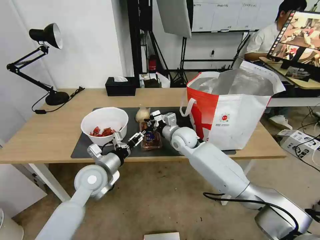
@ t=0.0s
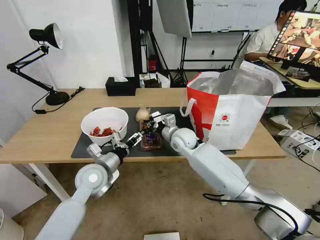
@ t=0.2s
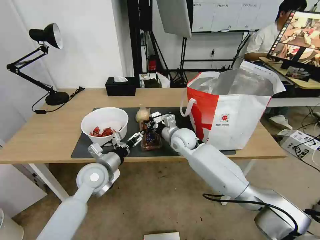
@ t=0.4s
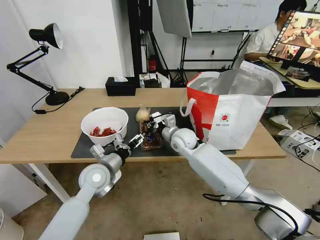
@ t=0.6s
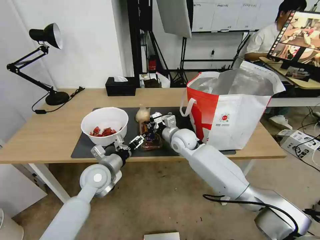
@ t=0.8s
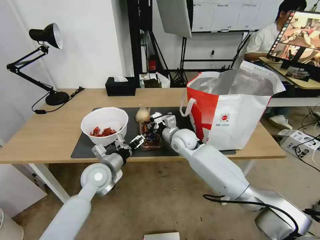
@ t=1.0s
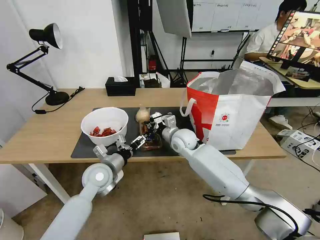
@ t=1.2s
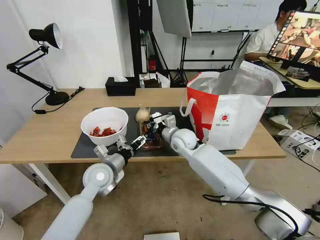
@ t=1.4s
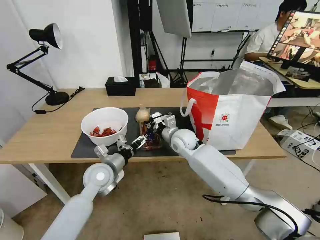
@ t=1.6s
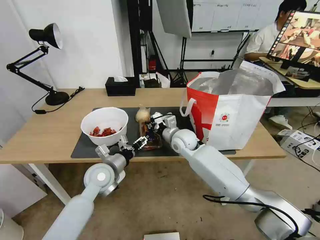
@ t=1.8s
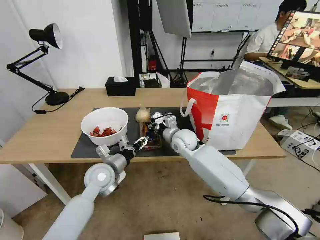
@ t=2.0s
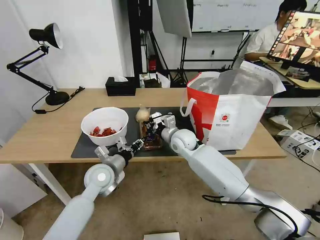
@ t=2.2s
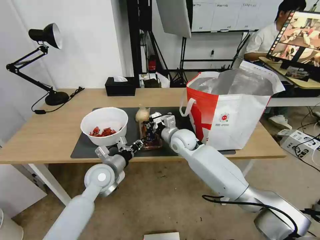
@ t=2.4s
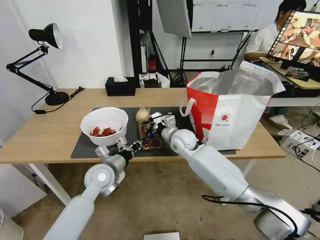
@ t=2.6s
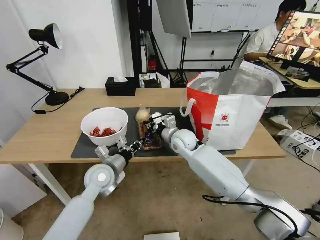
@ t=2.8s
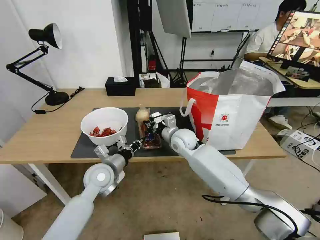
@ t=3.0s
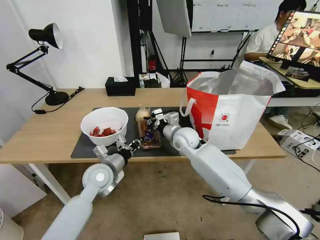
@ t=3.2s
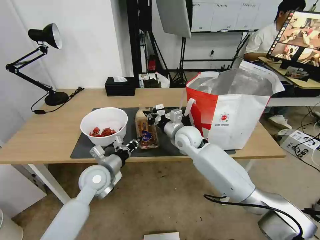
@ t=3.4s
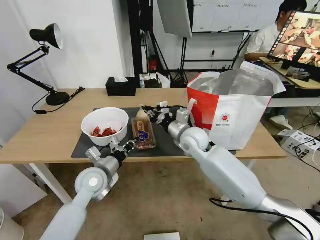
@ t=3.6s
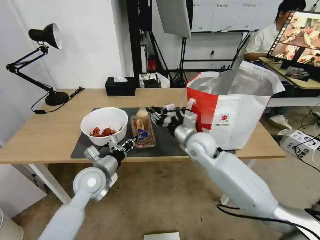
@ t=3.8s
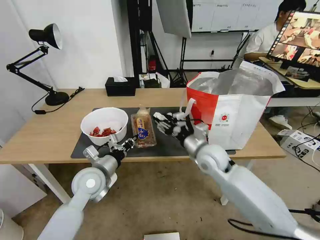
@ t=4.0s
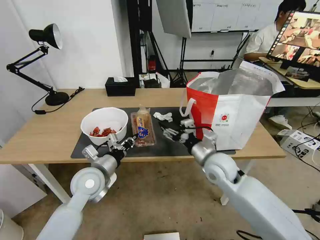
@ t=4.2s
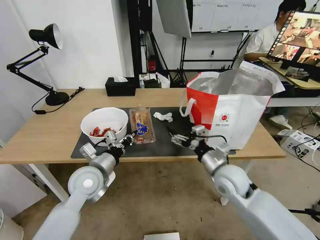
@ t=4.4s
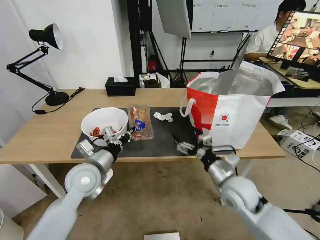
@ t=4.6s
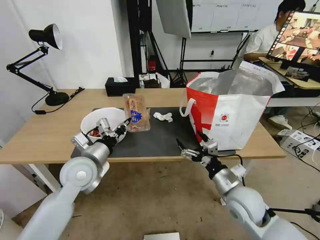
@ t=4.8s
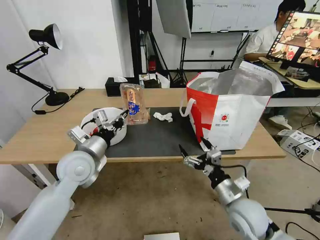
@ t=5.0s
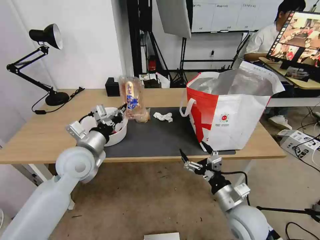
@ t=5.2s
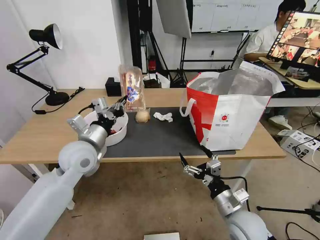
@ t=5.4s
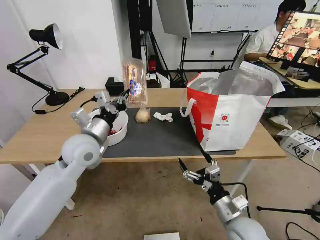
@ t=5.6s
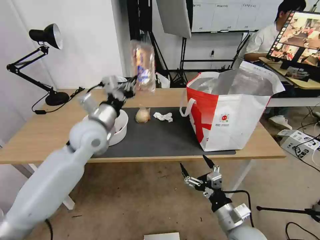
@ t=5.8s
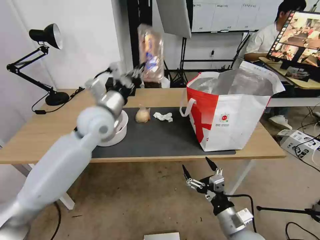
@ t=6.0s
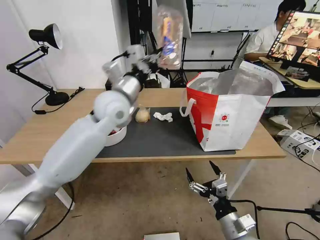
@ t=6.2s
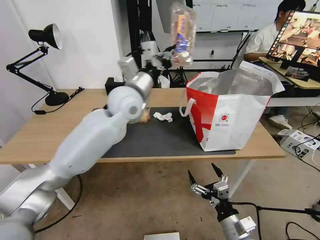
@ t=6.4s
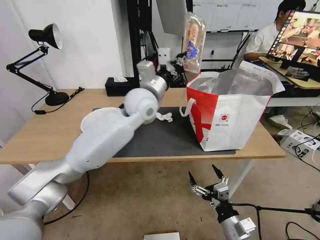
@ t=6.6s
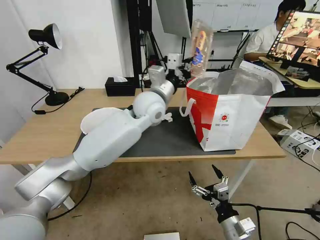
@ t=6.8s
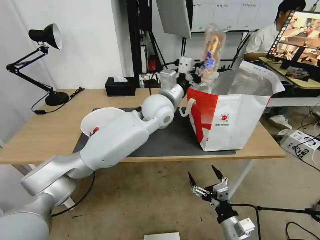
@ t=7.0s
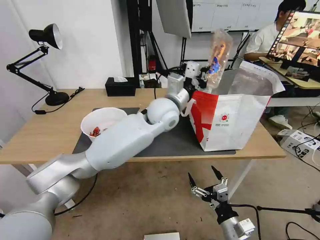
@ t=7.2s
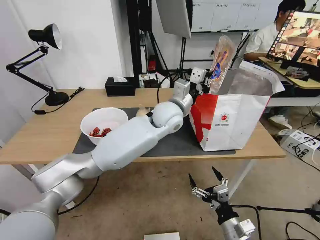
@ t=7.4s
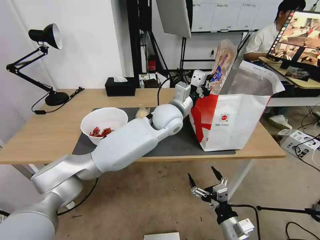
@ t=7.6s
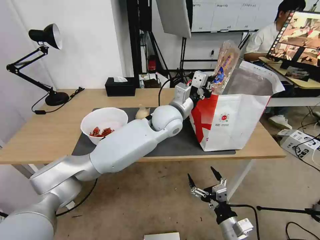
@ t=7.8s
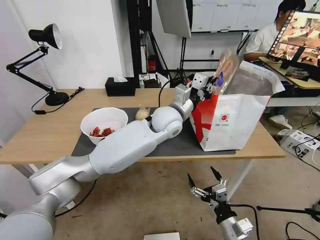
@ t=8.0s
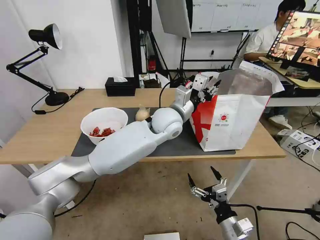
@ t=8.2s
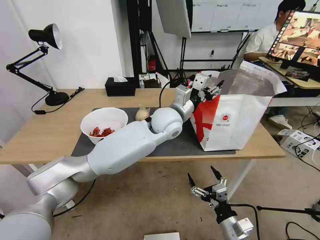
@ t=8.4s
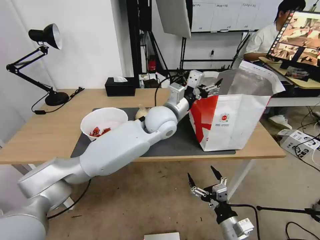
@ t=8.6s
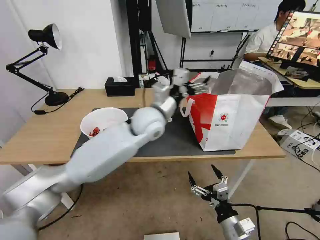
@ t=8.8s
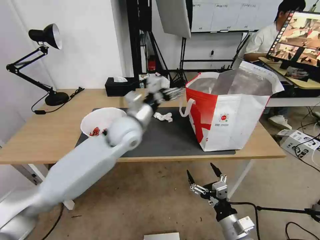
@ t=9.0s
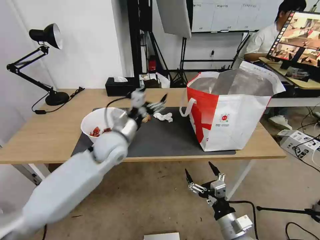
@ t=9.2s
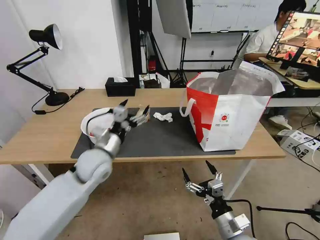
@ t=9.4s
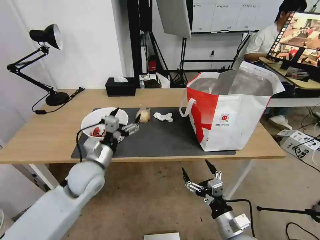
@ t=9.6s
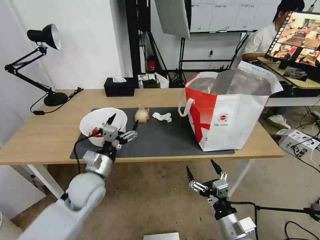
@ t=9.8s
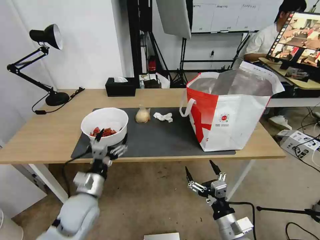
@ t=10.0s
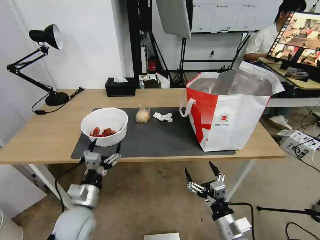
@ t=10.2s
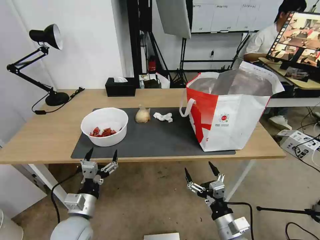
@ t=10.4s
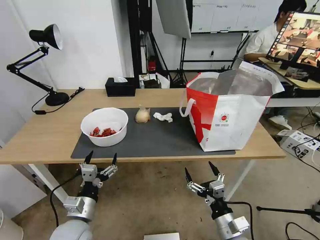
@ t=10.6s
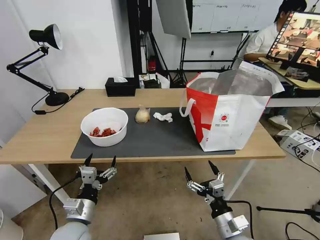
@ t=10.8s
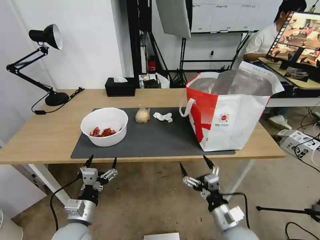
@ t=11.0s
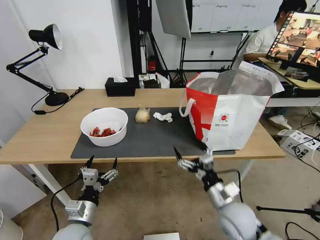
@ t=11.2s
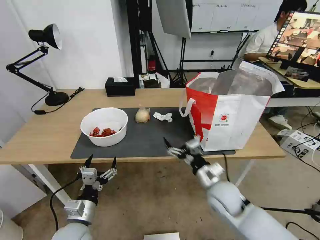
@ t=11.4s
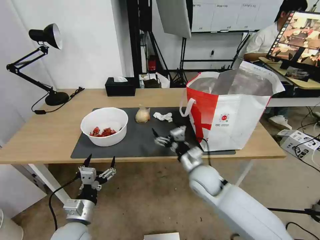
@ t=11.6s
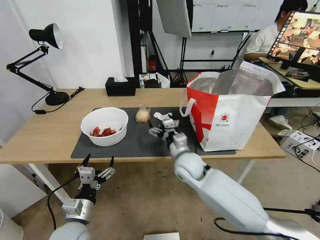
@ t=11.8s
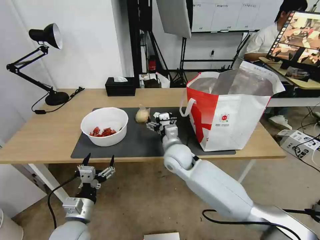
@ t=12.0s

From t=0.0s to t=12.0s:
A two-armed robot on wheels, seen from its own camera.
Task of the whole recording: Pick up the trash from the table and place it into the takeout bag.
From t=0.0s to t=1.6s: The grippers make only small movements.
From t=1.6s to t=3.0s: The left gripper closes up.
From t=3.0s to t=4.4s: The right gripper moves backward and to the right, about 20 cm, and opens; the left gripper changes place by about 5 cm.
From t=4.4s to t=6.0s: The left gripper shifts about 20 cm upward and forward; the right gripper moves backward and downward, some 20 cm.
From t=6.0s to t=7.6s: The left gripper heads to the right, covering some 20 cm.
From t=7.6s to t=9.0s: The left gripper moves to the left and backward, some 15 cm, and opens up.
From t=9.0s to t=10.4s: The left gripper is displaced backward, downward and to the left by roughly 30 cm.
From t=10.4s to t=12.0s: The right gripper shifts some 30 cm forward and to the left.

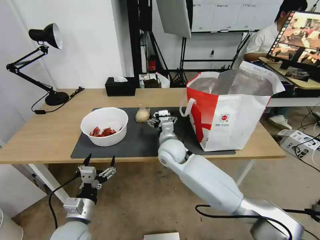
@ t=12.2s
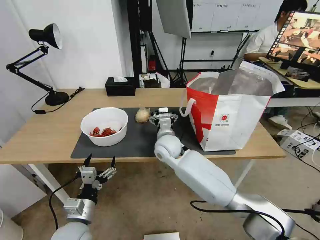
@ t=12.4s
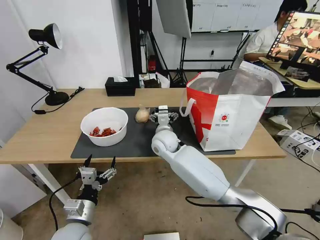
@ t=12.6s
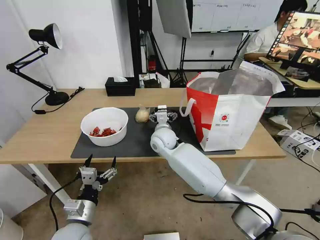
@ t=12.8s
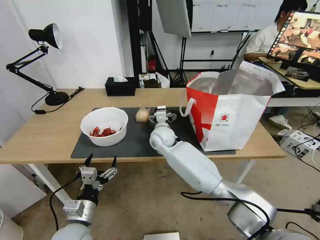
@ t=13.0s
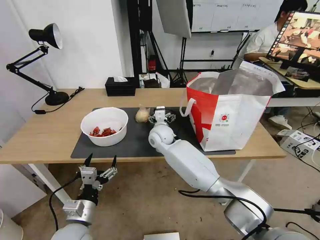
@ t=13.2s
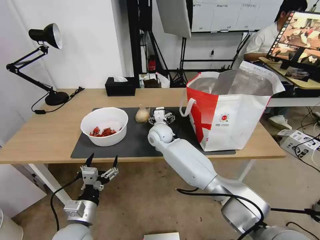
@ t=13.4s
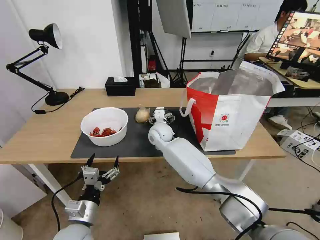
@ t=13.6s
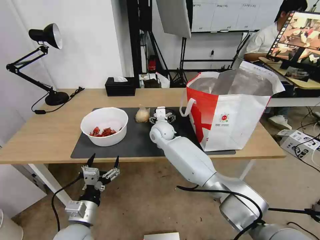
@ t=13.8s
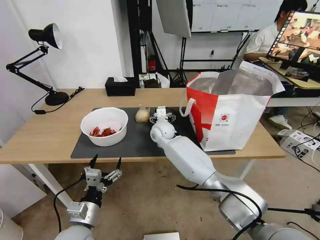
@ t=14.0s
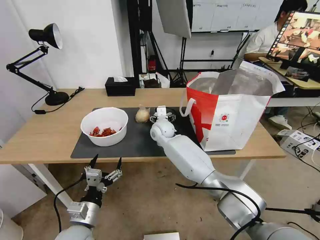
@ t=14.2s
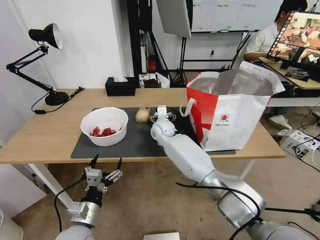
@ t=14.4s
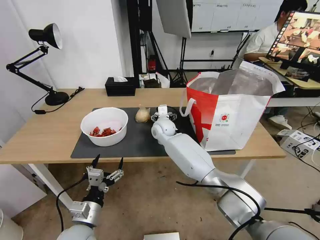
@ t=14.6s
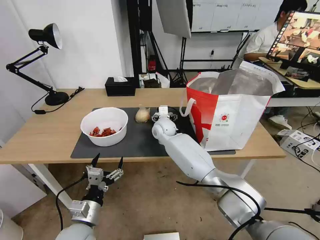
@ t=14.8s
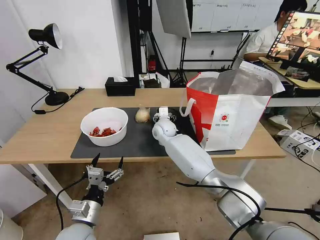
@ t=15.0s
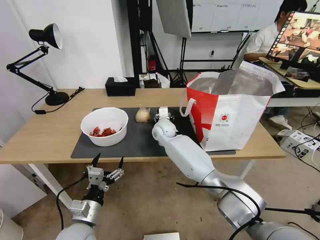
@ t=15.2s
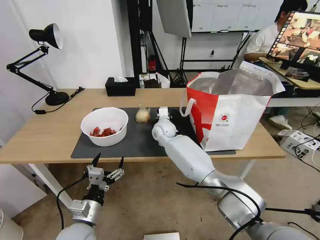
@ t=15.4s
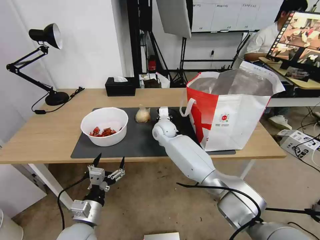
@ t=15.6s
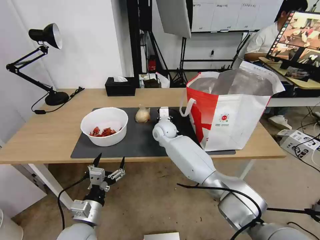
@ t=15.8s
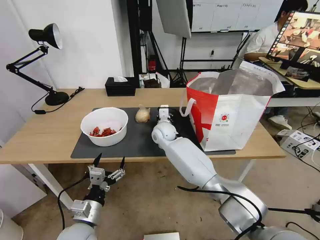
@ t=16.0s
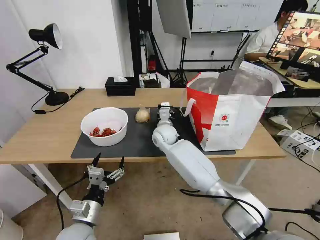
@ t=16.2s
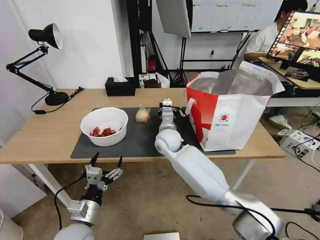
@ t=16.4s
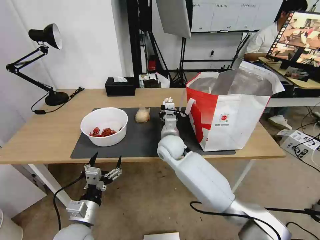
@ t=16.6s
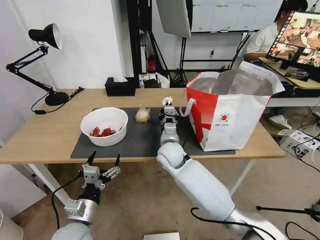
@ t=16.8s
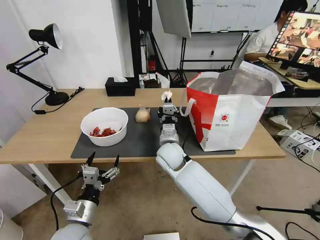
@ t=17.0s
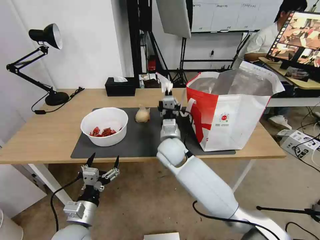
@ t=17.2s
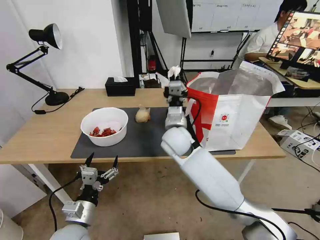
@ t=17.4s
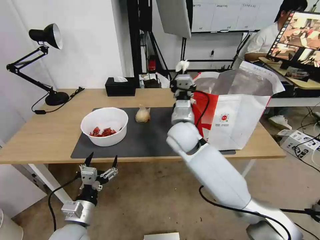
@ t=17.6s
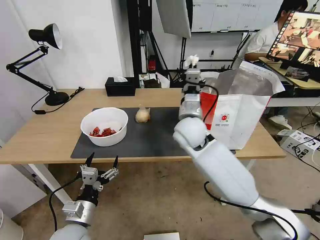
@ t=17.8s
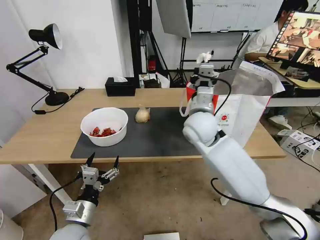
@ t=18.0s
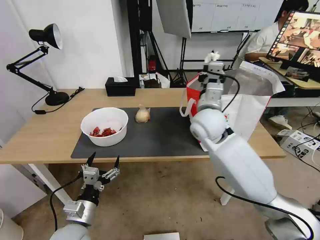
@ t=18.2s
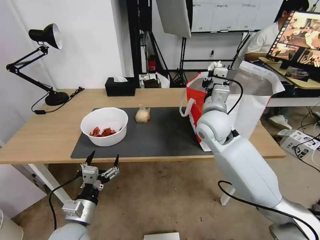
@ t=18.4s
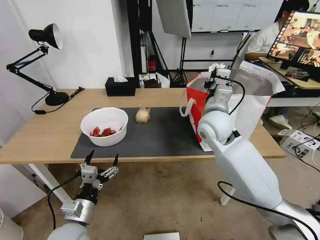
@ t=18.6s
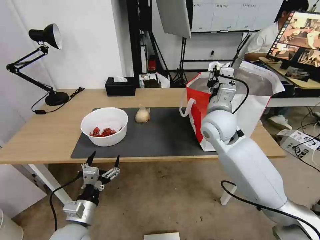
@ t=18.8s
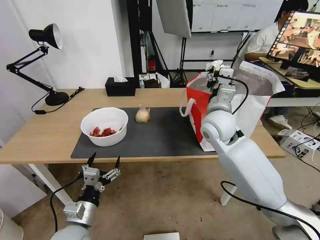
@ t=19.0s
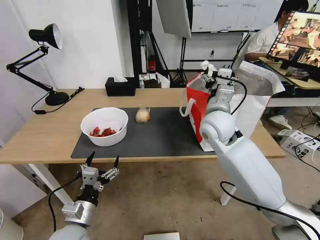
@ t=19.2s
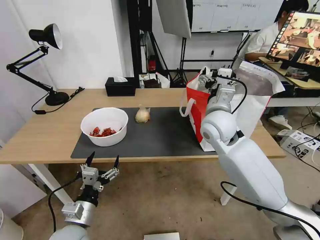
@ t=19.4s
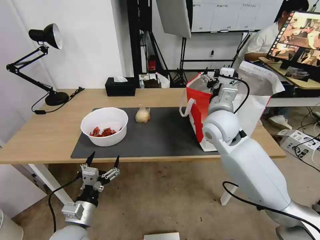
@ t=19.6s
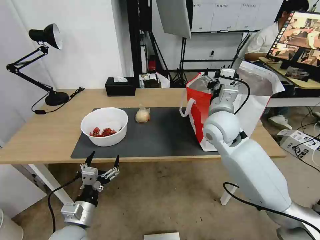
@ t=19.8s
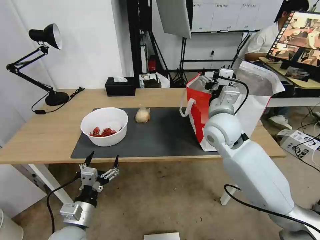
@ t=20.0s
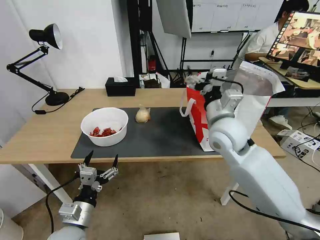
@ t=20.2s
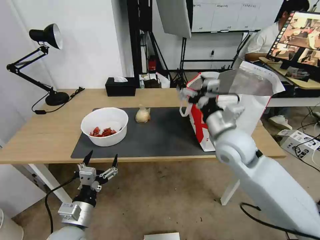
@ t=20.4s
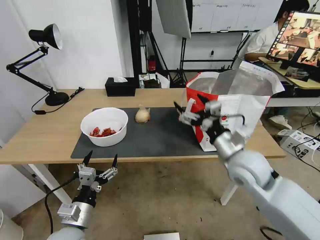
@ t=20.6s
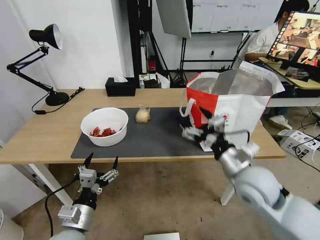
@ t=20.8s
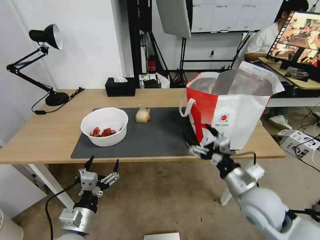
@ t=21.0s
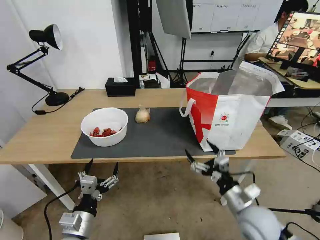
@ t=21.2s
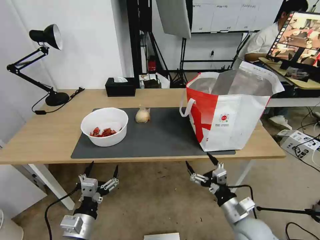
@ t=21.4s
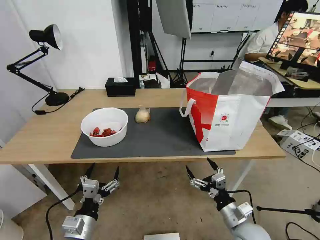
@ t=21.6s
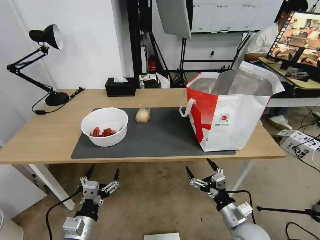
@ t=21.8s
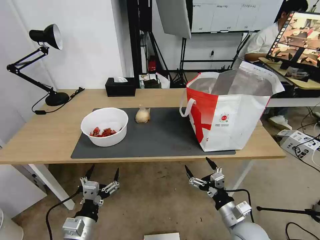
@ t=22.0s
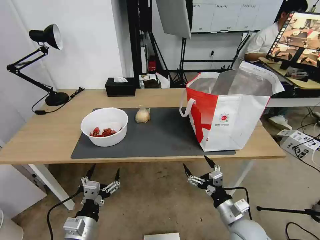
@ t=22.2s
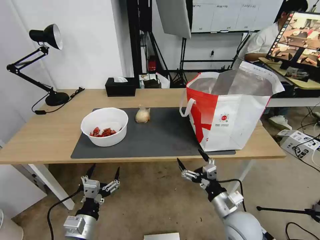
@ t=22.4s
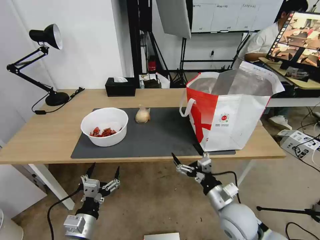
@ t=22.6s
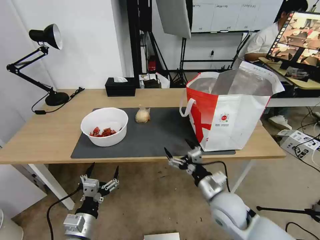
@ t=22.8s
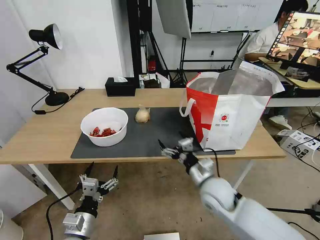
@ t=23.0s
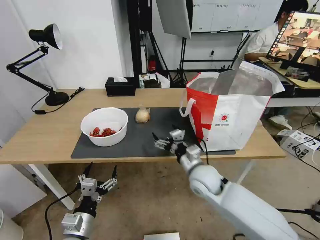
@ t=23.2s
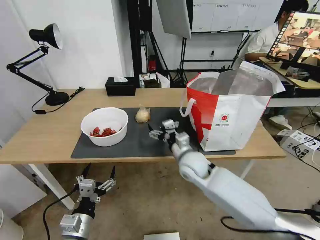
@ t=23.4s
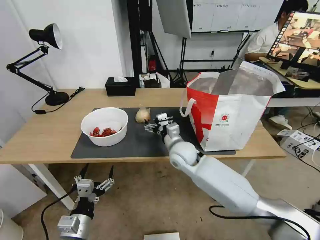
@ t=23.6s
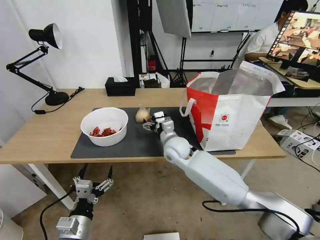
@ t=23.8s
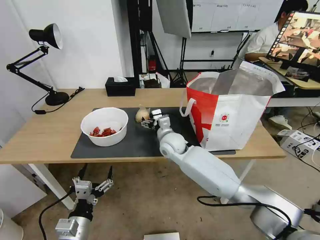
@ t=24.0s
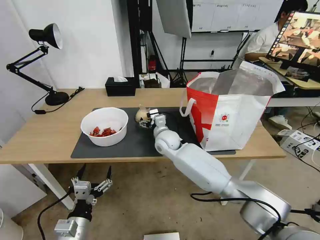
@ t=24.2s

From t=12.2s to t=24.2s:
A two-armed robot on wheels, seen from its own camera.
Task of the whole recording: Pick up the trash from the table and place it into the takeout bag.
From t=12.2s to t=13.8s: The right gripper shifts roughly 10 cm forward.
From t=13.8s to t=15.2s: The right gripper closes up.
From t=15.2s to t=16.6s: The right gripper is displaced backward by approximately 10 cm, and closes up.
From t=16.6s to t=18.2s: The right gripper heads upward and to the right, covering some 20 cm.
From t=18.2s to t=19.8s: The right gripper opens its fingers.
From t=19.8s to t=21.2s: The right gripper travels backward, downward and to the right by approximately 30 cm.
From t=22.6s to t=24.2s: The right gripper goes roughly 30 cm forward and to the left.
